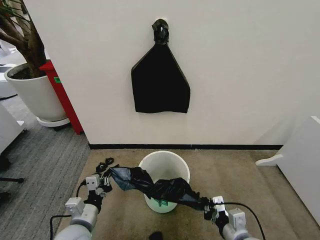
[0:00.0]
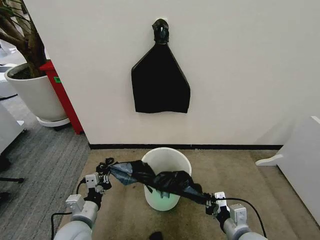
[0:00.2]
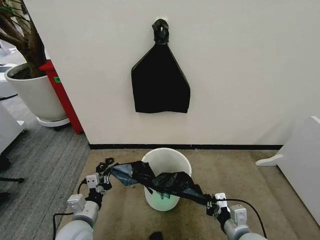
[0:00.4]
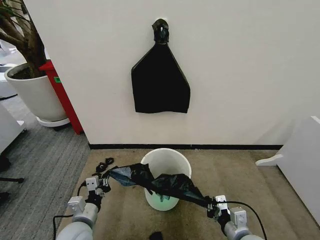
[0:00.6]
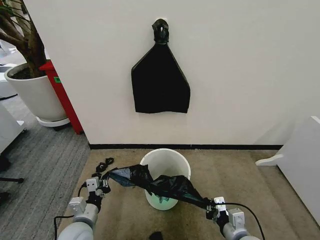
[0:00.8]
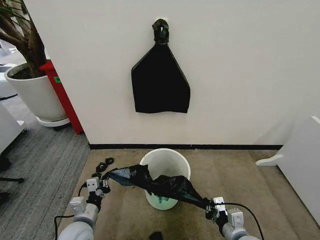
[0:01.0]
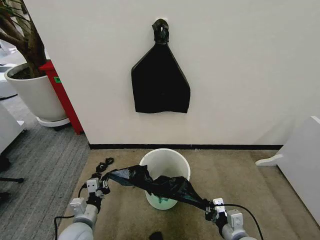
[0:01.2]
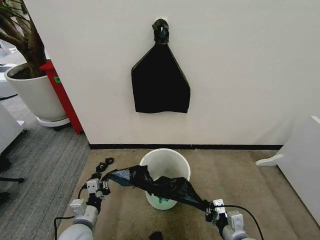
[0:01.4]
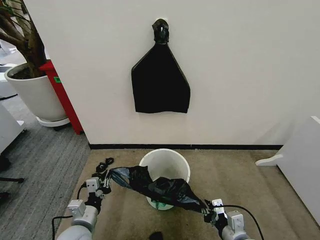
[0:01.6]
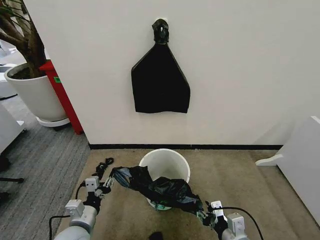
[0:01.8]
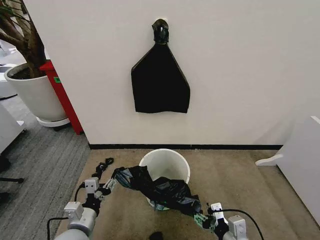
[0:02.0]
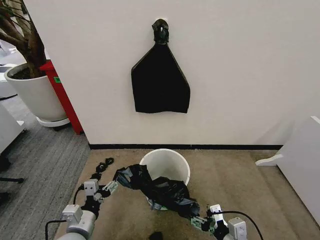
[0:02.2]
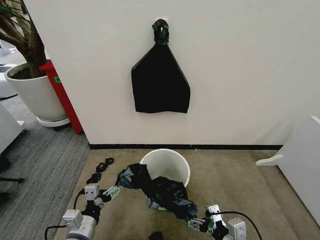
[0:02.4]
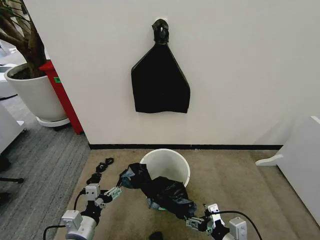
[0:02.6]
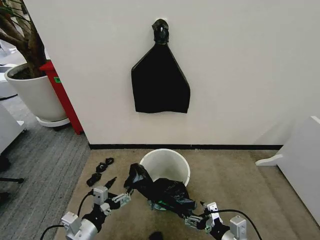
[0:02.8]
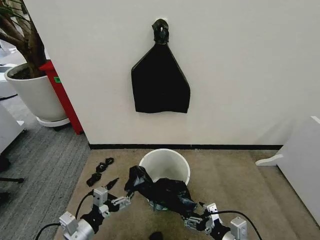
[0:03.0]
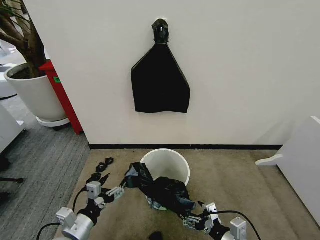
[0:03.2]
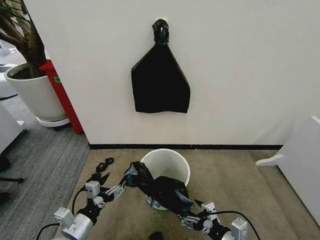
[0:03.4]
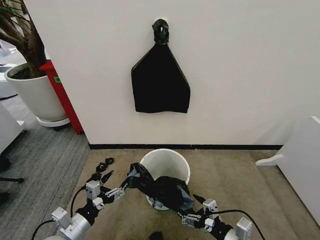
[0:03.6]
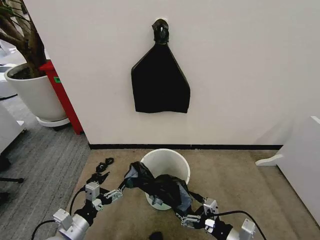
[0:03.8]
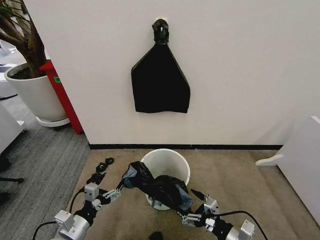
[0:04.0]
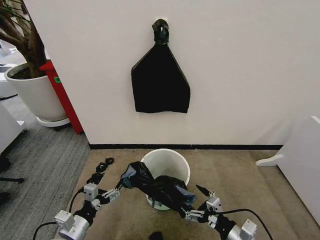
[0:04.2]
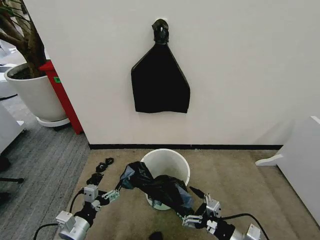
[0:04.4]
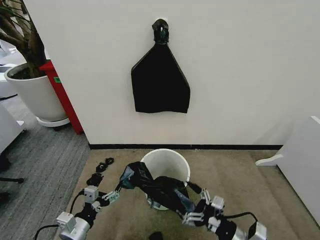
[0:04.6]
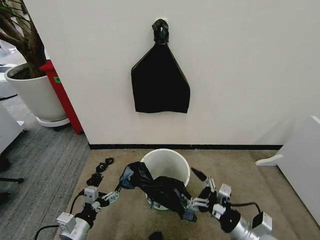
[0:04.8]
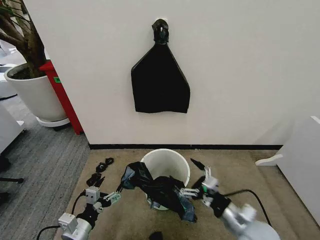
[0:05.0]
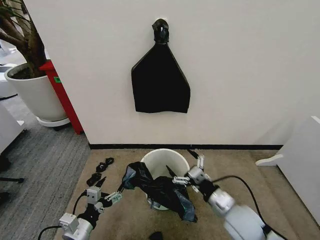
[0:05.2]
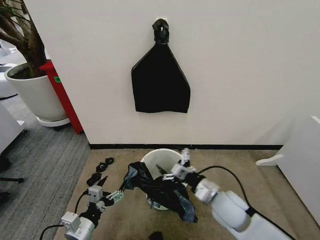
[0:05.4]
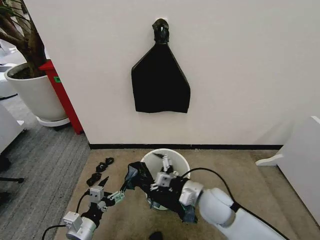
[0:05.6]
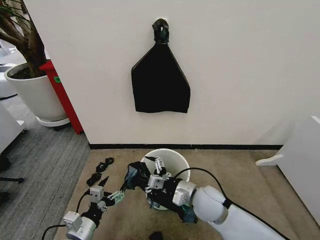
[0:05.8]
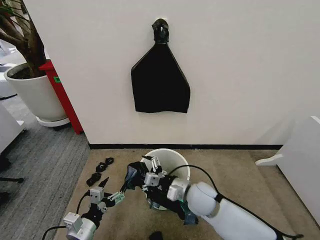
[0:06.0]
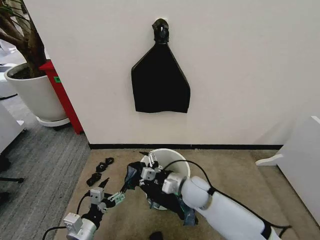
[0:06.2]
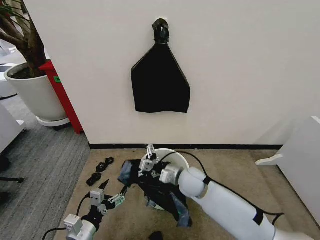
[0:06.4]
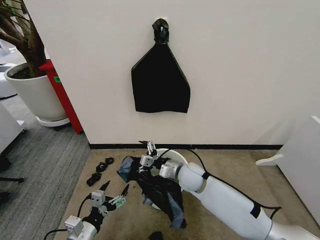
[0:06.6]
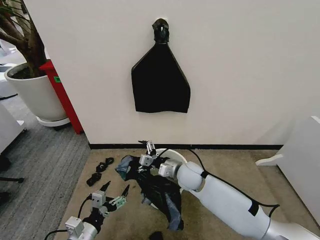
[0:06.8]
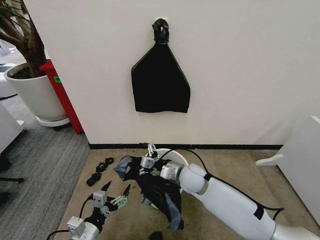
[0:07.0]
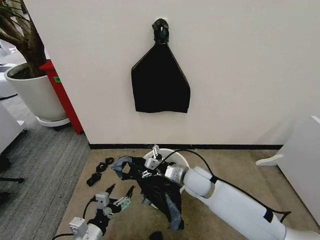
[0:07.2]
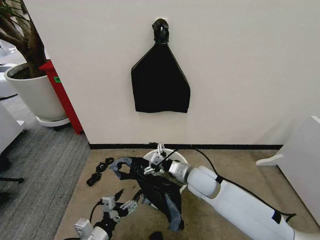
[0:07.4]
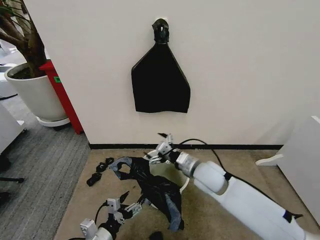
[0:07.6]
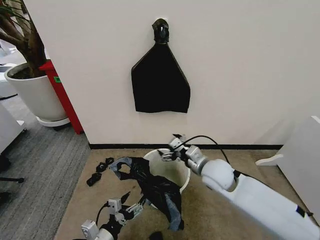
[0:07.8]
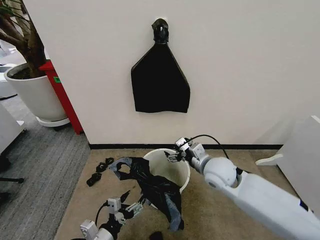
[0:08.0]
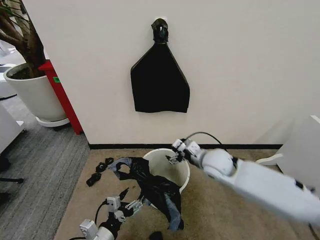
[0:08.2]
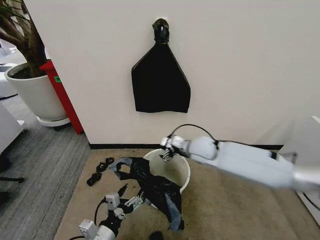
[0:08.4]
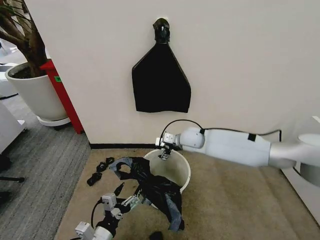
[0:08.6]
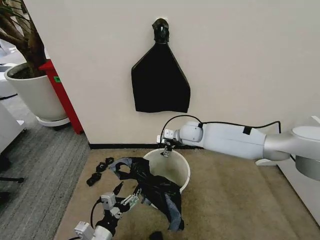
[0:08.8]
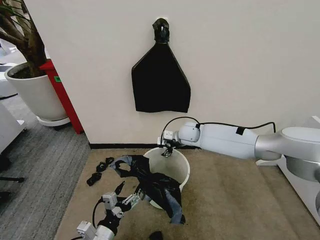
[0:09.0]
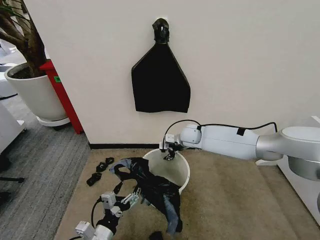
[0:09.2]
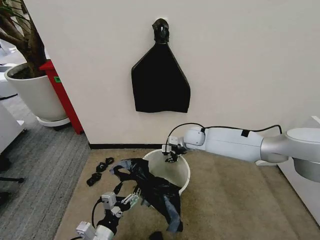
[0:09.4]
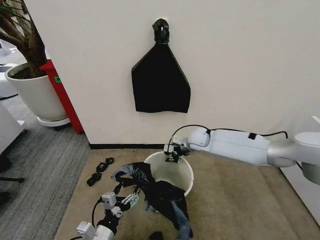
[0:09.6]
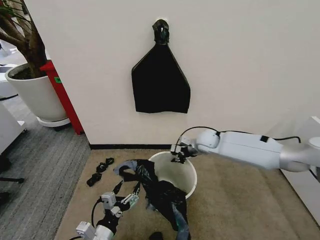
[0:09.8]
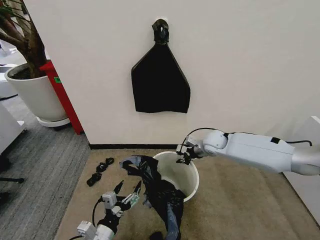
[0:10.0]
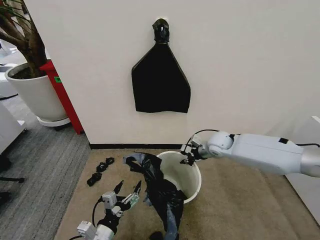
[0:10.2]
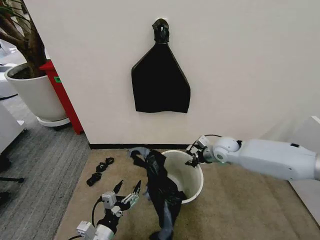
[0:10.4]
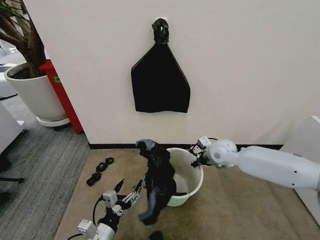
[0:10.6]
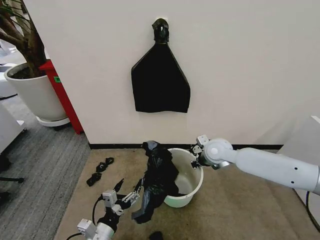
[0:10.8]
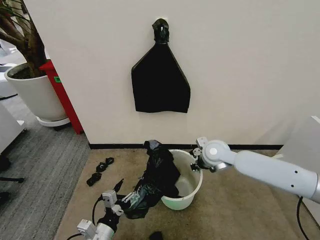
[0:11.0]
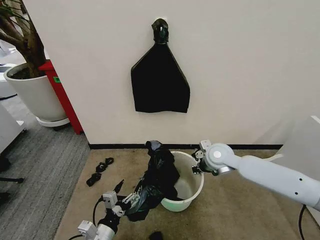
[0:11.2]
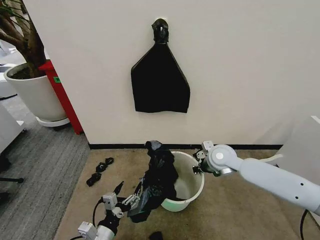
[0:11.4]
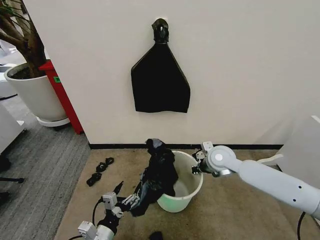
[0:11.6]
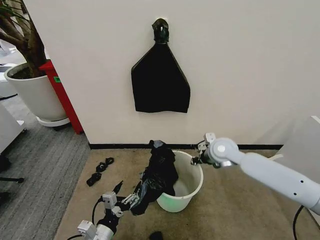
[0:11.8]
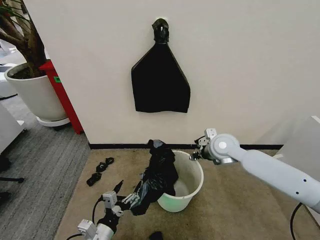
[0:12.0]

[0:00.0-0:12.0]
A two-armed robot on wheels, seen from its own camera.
Task of the whole recording: Place the garbage bag over the trash bin.
0:01.6 to 0:03.0: The left gripper travels upward by approximately 5 cm, and opens, while the right gripper opens its fingers.
0:04.4 to 0:06.0: The right gripper goes some 20 cm forward and to the left.
0:06.0 to 0:07.6: The right gripper heads upward, covering roughly 5 cm.
0:07.6 to 0:09.0: The right gripper is displaced forward by roughly 20 cm.
0:09.0 to 0:10.4: The right gripper goes approximately 15 cm to the right and backward, and closes up.
0:10.4 to 0:12.0: The right gripper shifts approximately 5 cm upward, and opens up.

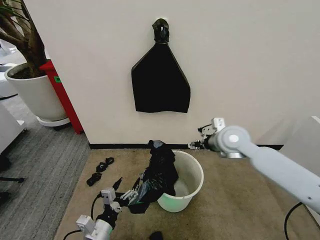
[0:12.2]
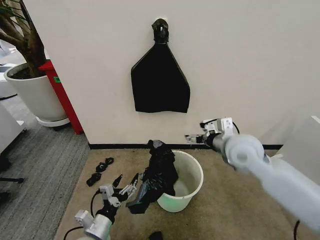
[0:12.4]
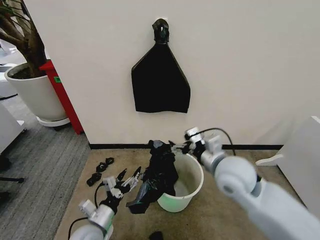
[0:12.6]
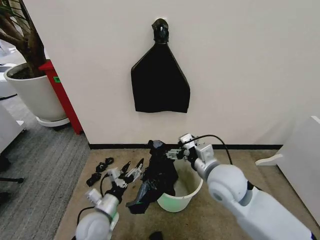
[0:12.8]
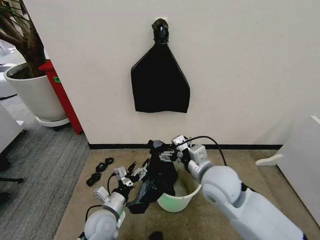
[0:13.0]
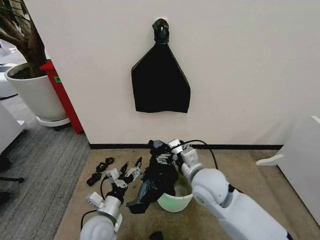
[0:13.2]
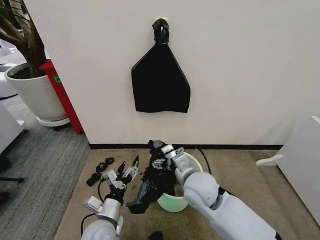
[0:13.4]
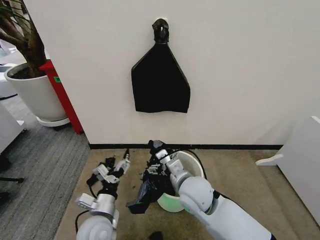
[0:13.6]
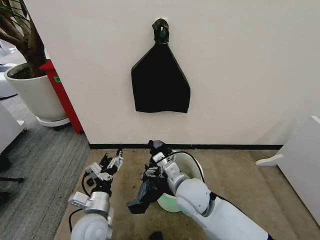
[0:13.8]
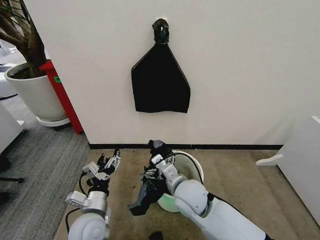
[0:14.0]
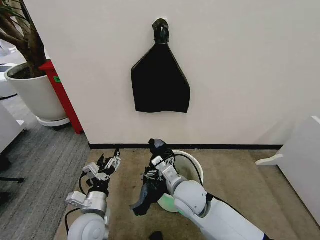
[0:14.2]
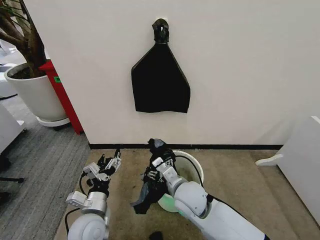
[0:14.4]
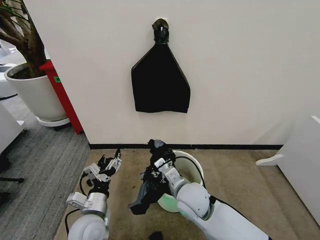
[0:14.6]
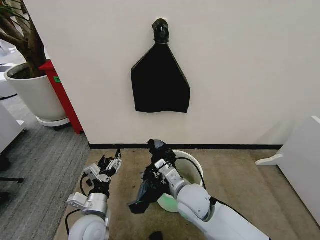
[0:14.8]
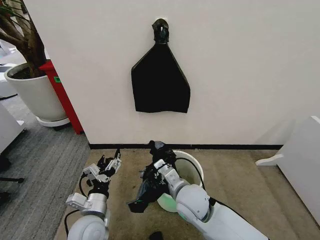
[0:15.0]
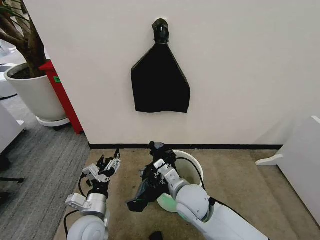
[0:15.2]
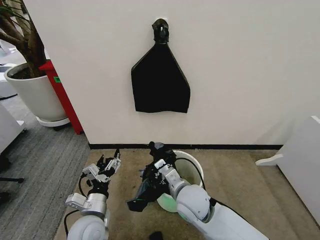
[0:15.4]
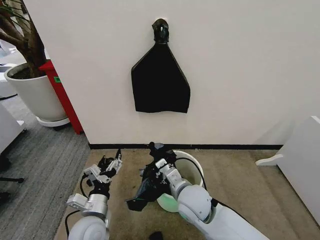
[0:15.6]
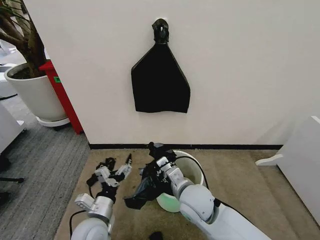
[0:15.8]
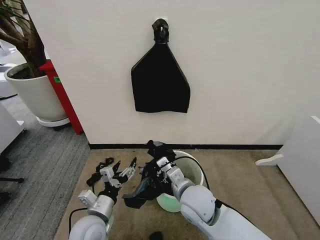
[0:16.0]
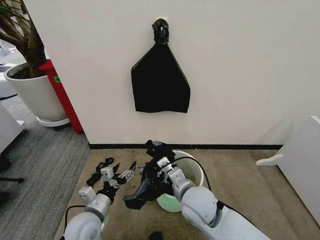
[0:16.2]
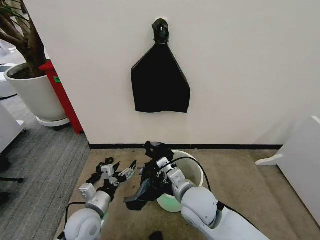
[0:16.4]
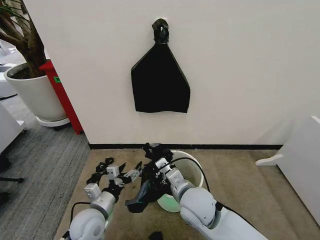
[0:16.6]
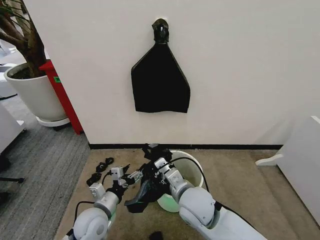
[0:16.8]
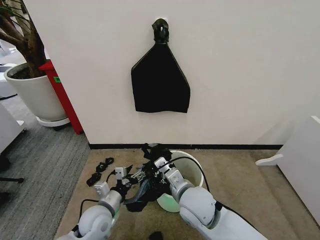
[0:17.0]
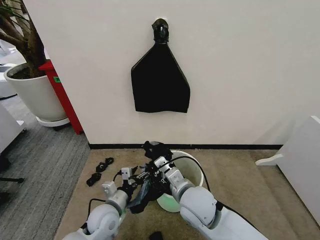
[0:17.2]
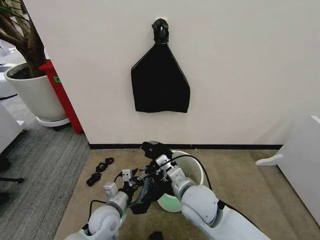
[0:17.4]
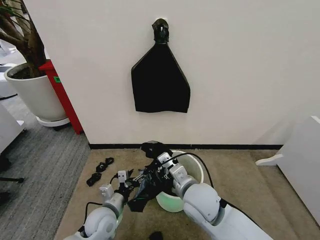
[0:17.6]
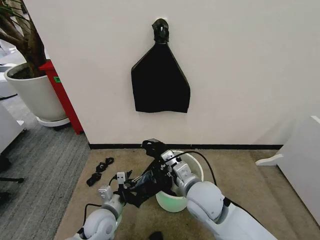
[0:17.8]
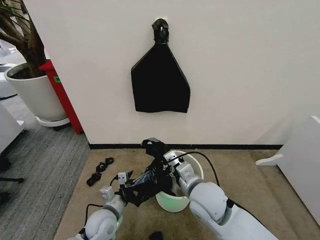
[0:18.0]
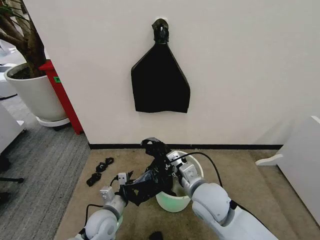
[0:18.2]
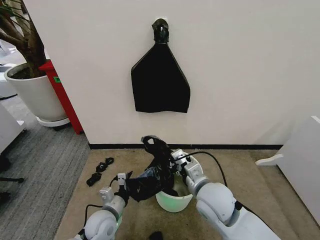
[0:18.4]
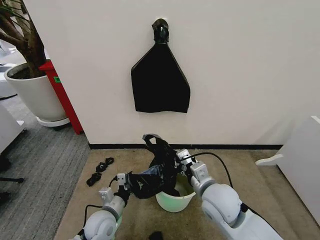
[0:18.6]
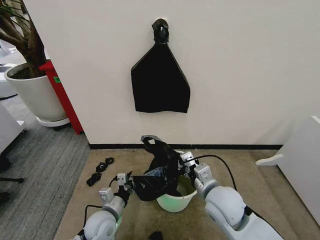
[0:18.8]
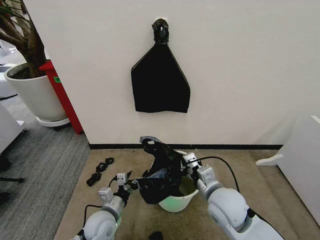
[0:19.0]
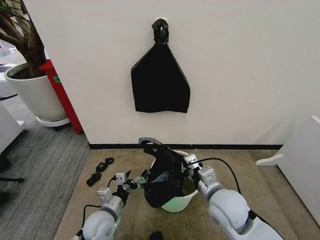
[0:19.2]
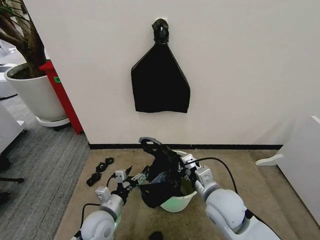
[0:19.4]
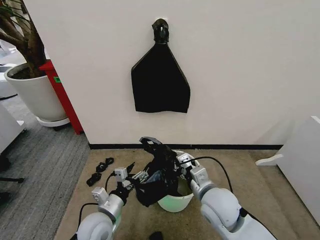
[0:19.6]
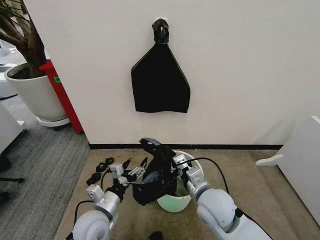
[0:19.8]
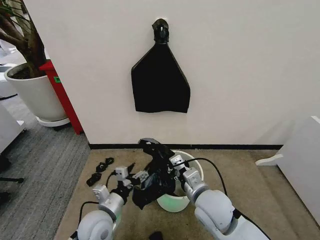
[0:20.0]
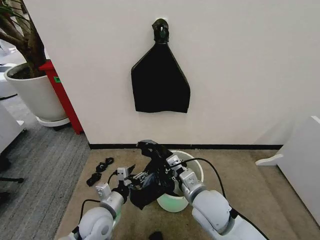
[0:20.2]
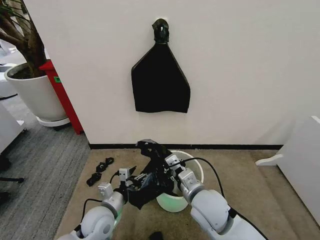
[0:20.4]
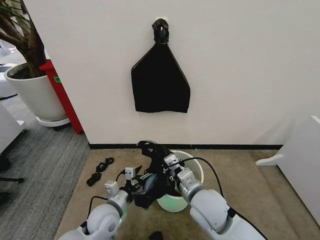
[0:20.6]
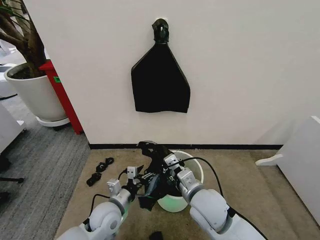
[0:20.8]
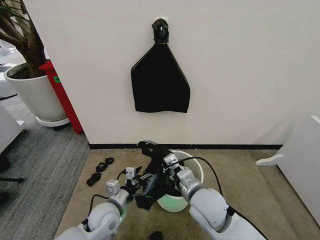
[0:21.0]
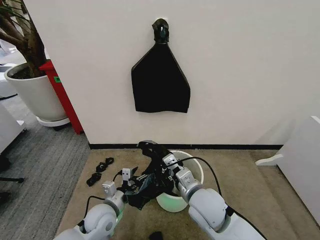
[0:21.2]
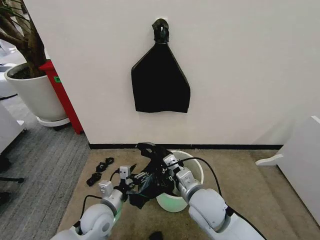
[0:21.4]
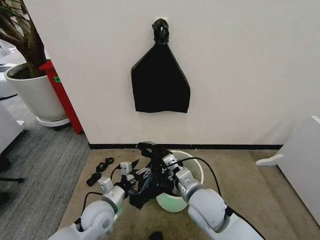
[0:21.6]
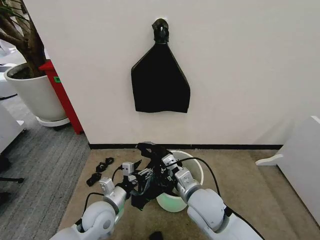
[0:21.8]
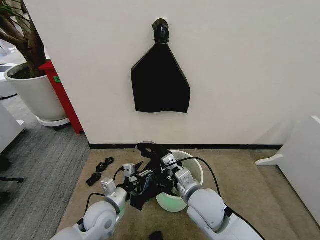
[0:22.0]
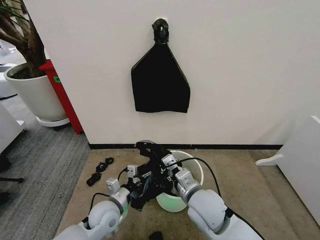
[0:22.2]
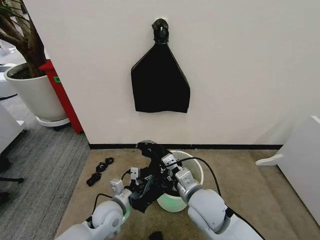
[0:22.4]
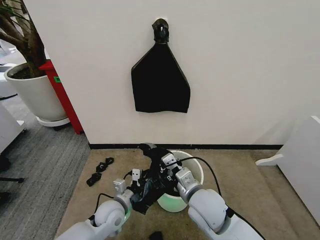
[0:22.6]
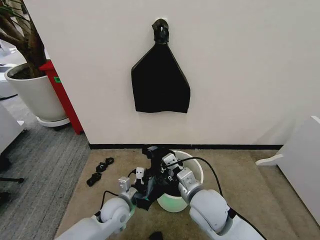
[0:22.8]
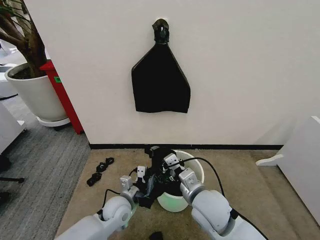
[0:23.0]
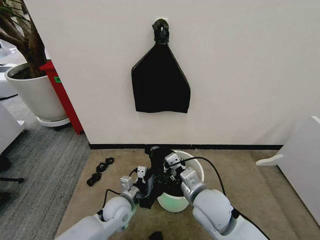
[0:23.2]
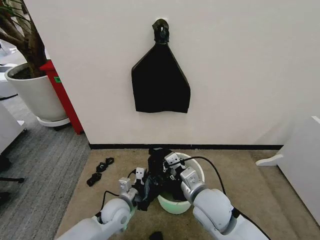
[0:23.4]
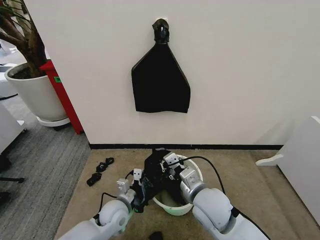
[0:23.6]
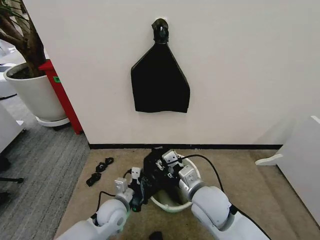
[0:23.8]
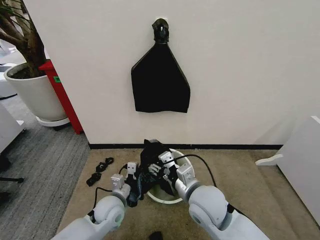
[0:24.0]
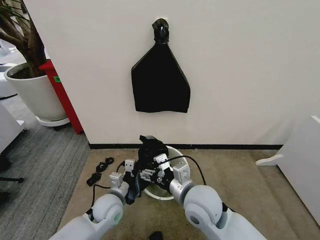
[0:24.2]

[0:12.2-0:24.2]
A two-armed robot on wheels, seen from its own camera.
Task of the whole recording: Place the garbage bag over the trash bin.
0:12.2 to 0:13.8: The right gripper moves to the left, backward and downward, approximately 20 cm. Meanwhile the left gripper is displaced forward by approximately 5 cm.
0:13.8 to 0:15.2: The right gripper closes its fingers.
0:16.6 to 0:18.2: The left gripper ends up roughly 5 cm from where it was.
0:18.2 to 0:19.8: The left gripper shifts some 5 cm upward.
0:19.8 to 0:21.2: The left gripper moves roughly 5 cm.
0:21.2 to 0:22.6: The grippers move only a little.
0:22.6 to 0:24.2: The right gripper opens its fingers, while the left gripper closes.
